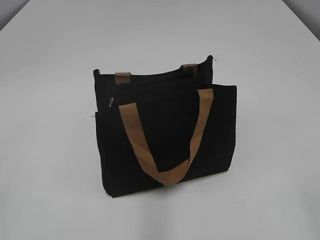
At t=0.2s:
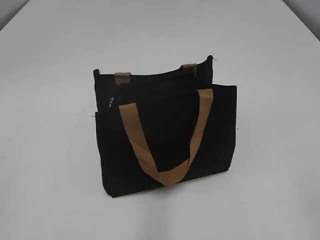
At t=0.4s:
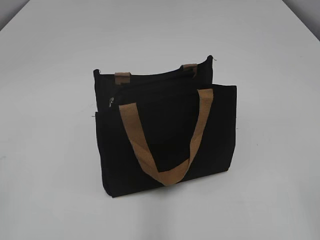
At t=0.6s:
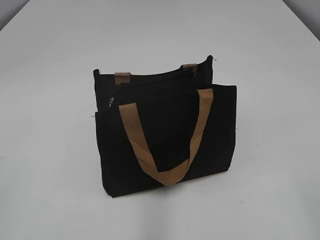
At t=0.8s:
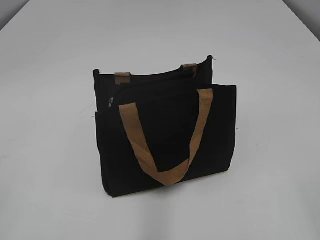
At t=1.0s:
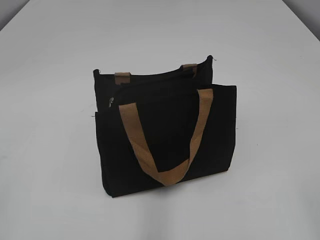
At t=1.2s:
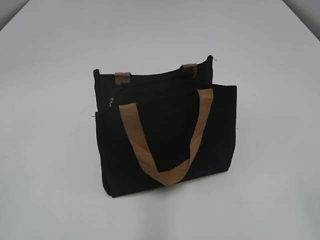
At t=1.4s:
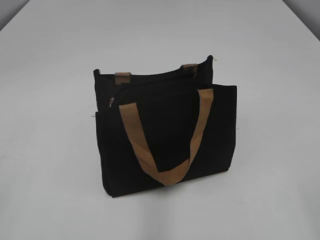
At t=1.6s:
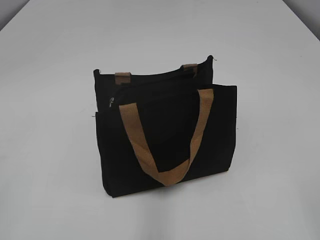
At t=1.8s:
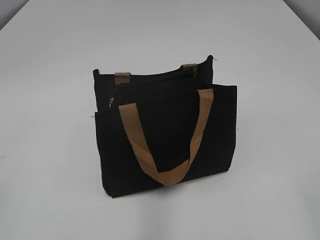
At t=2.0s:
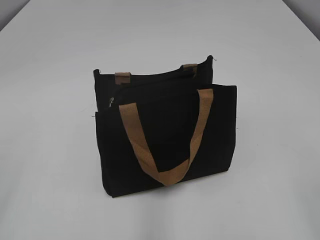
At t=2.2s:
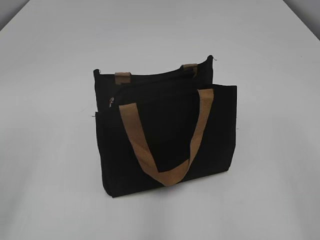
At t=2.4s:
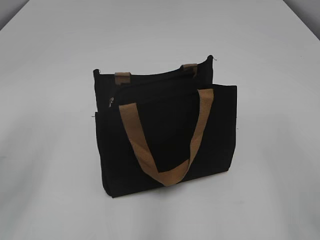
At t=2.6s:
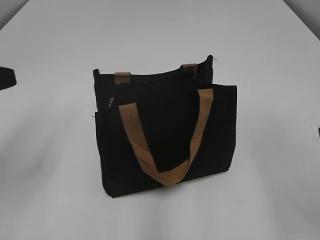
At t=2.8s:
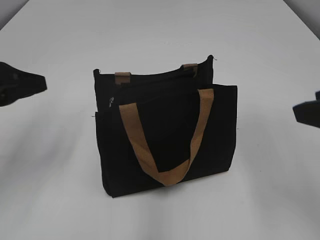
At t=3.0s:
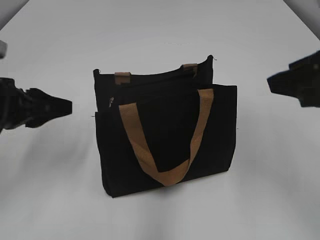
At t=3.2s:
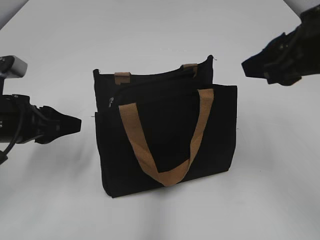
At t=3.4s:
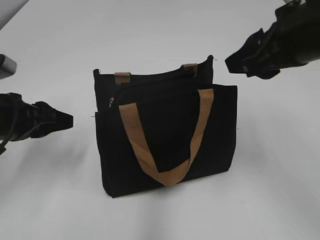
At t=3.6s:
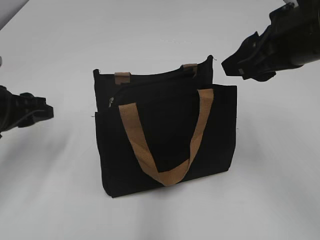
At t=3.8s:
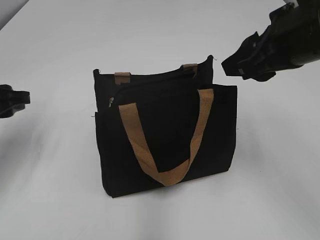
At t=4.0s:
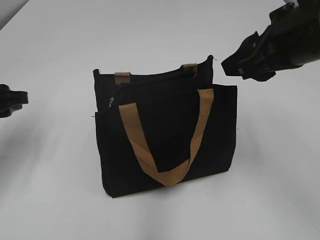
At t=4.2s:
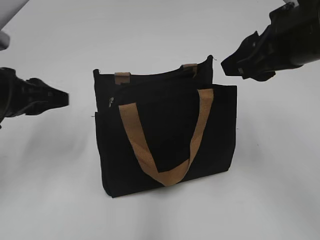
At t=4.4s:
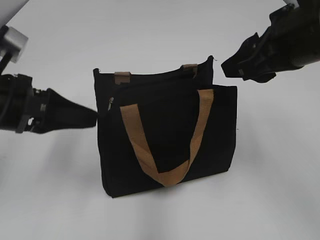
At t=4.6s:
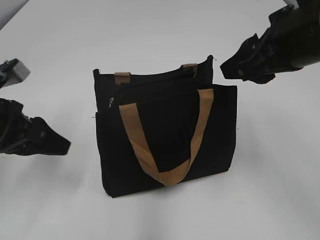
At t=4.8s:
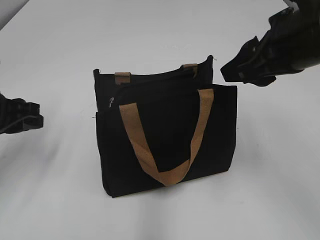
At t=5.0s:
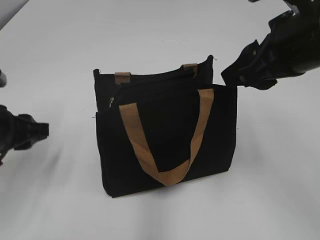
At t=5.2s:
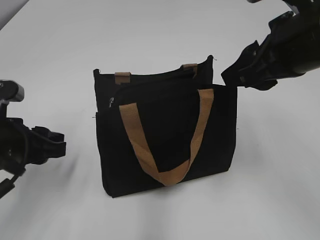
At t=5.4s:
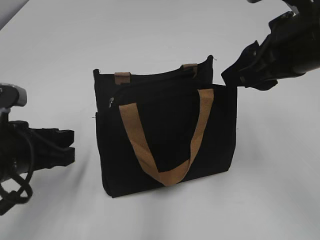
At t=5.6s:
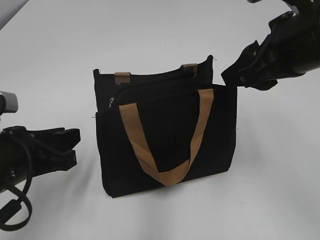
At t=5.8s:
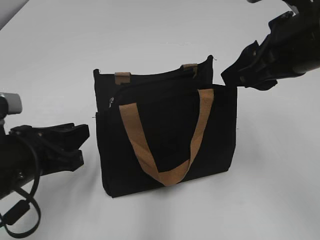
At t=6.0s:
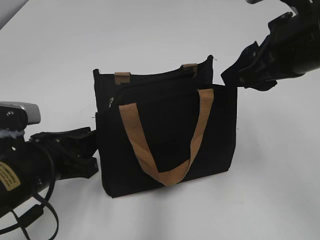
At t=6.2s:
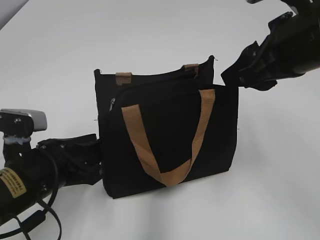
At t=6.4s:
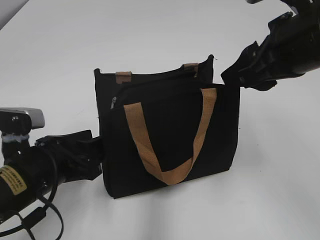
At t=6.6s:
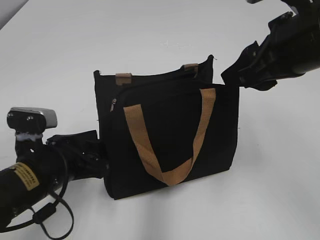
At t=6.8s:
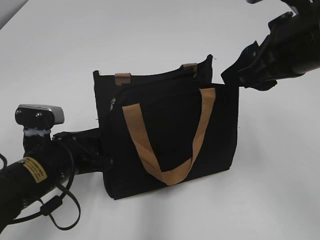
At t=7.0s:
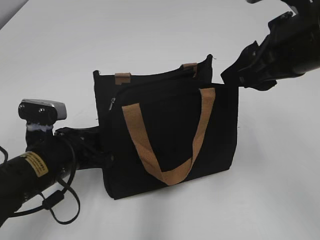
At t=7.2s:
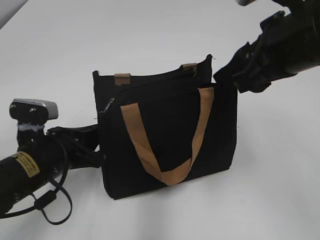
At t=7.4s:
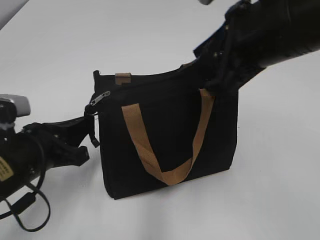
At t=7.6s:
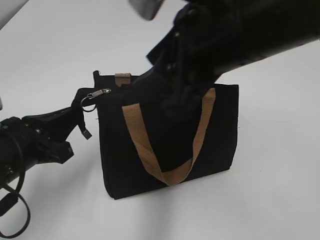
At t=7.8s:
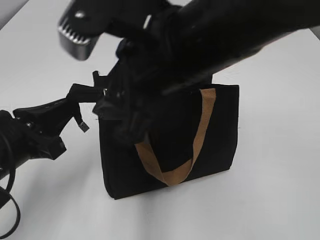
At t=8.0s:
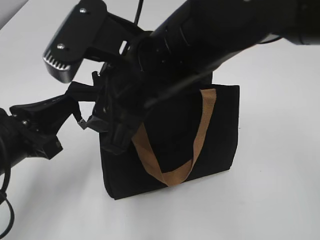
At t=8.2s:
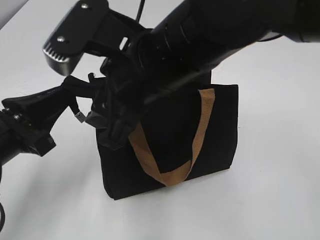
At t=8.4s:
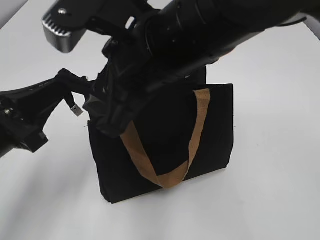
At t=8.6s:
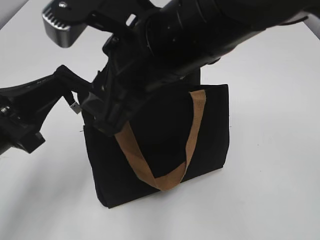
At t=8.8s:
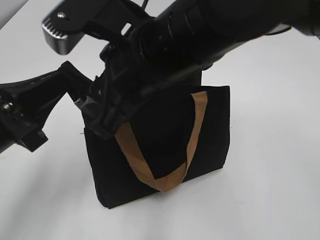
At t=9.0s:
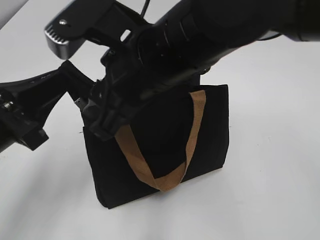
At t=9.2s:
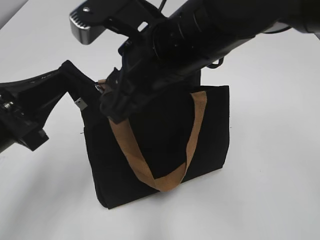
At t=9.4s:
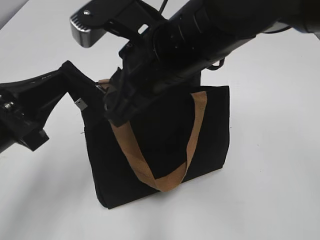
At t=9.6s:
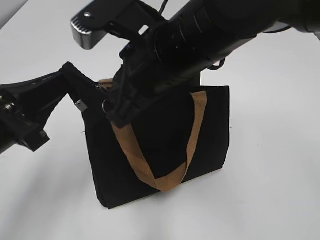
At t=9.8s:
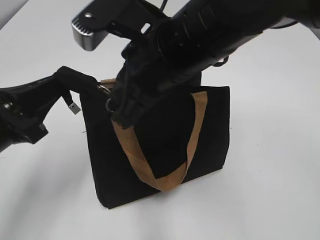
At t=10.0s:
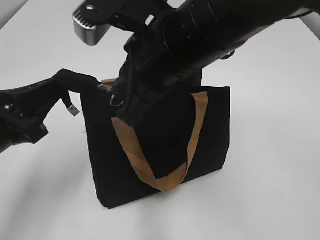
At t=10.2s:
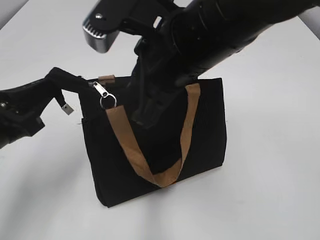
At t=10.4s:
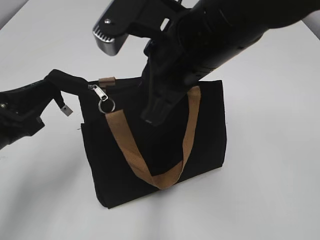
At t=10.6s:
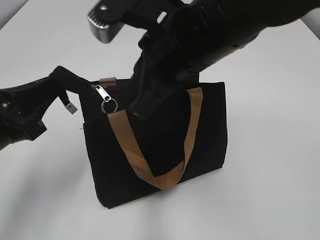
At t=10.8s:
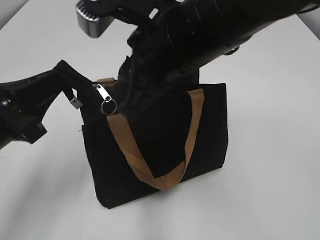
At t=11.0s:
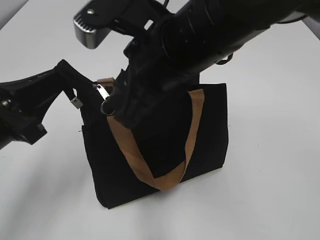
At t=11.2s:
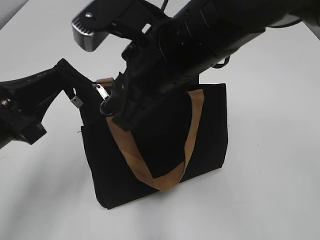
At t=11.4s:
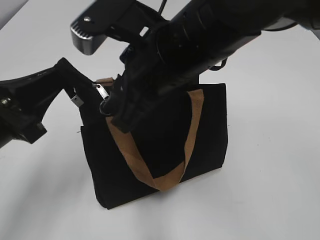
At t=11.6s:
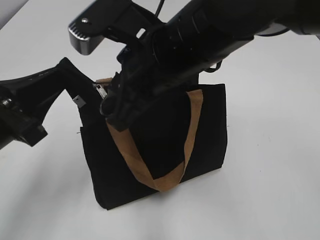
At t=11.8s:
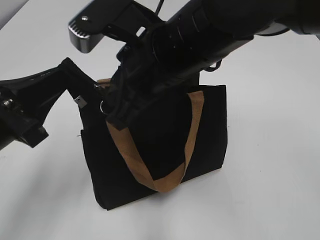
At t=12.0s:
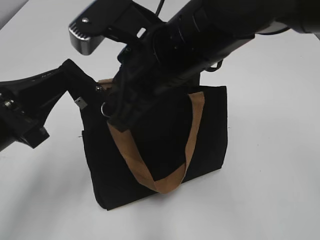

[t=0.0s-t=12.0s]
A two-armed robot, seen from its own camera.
t=1.6s to t=3.0s: The two grippers go approximately 20 cm forward.
t=3.0s to t=4.4s: The right gripper goes approximately 5 cm forward.
t=4.4s to t=6.0s: The left gripper travels downward and backward by about 10 cm.
t=6.0s to t=7.6s: The right gripper is displaced to the left by some 10 cm, while the left gripper closes.
t=7.6s to t=9.0s: The right gripper shifts some 5 cm to the left. The left gripper heads upward, covering roughly 5 cm.
t=9.0s to t=10.4s: The right gripper closes its fingers.
t=10.4s to t=12.0s: The right gripper opens and closes again.

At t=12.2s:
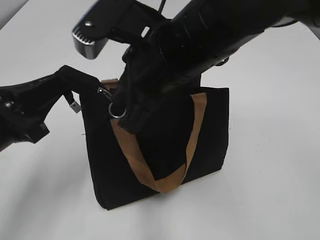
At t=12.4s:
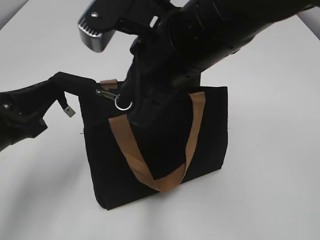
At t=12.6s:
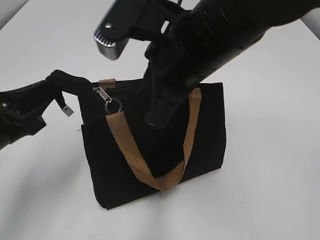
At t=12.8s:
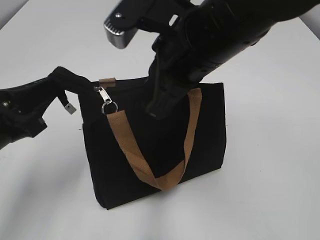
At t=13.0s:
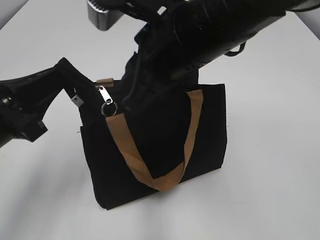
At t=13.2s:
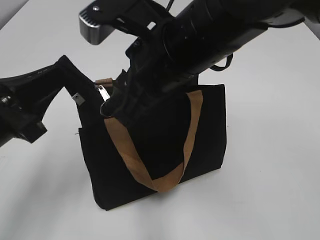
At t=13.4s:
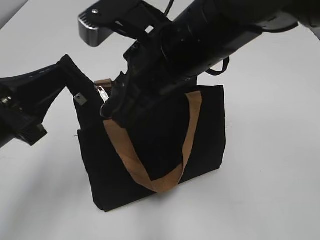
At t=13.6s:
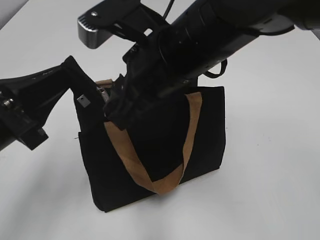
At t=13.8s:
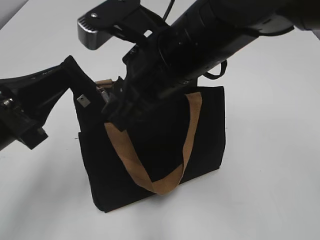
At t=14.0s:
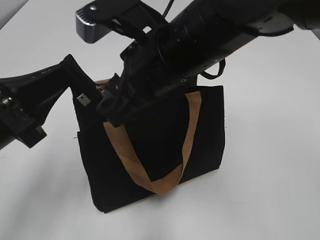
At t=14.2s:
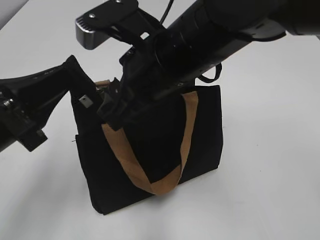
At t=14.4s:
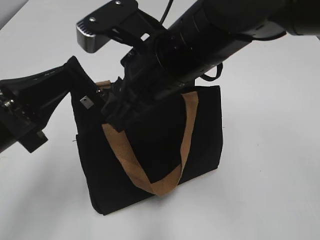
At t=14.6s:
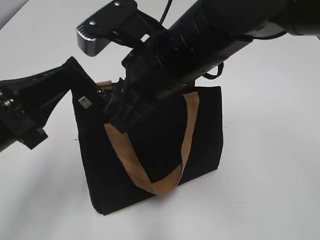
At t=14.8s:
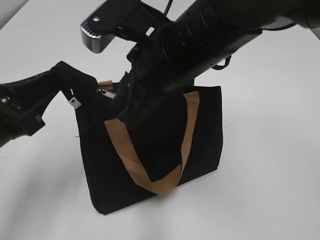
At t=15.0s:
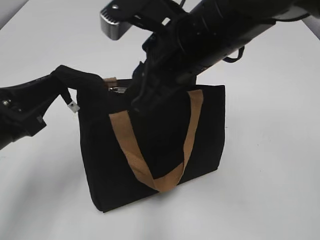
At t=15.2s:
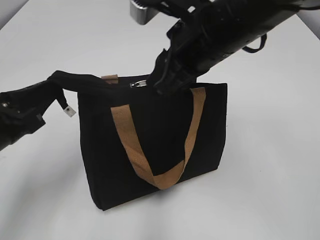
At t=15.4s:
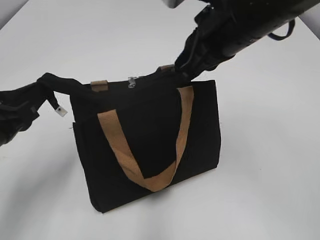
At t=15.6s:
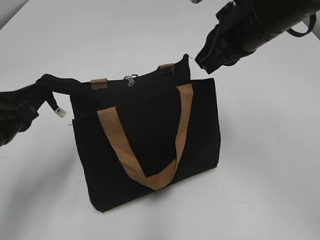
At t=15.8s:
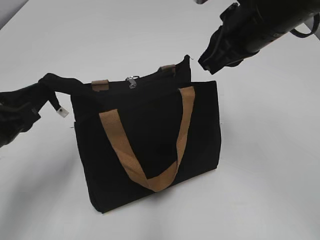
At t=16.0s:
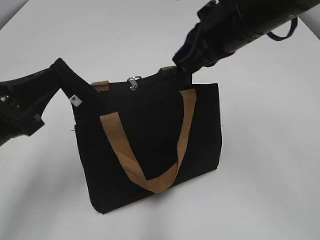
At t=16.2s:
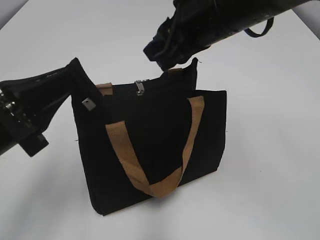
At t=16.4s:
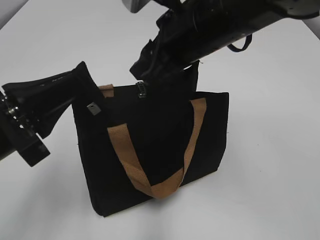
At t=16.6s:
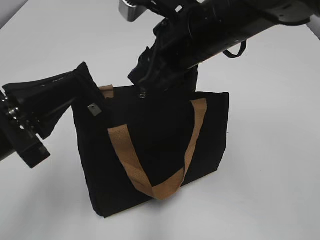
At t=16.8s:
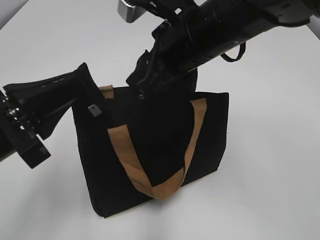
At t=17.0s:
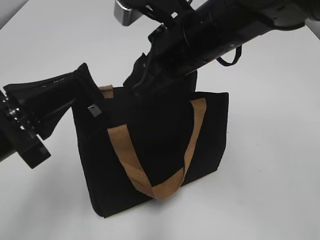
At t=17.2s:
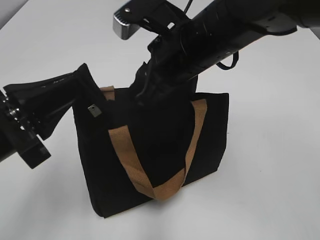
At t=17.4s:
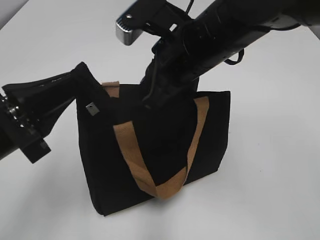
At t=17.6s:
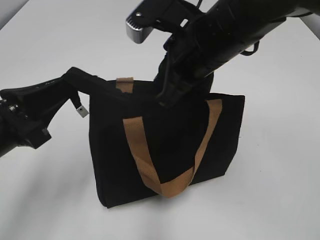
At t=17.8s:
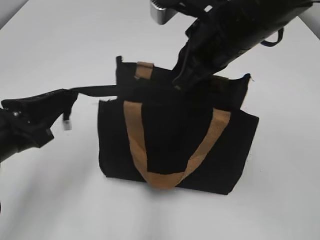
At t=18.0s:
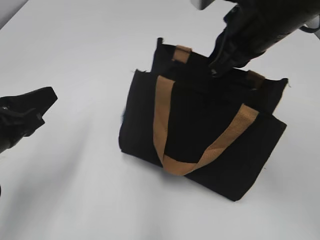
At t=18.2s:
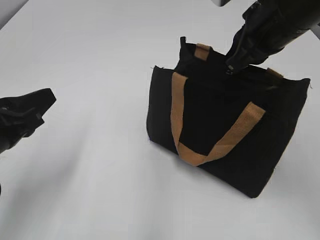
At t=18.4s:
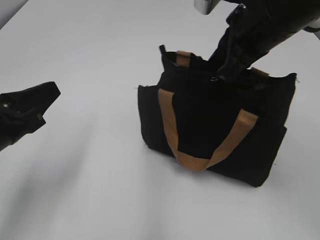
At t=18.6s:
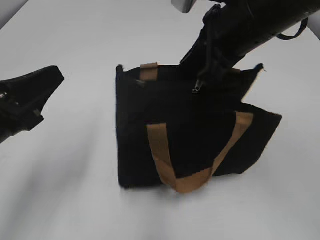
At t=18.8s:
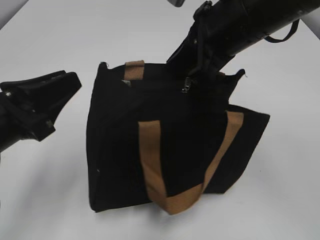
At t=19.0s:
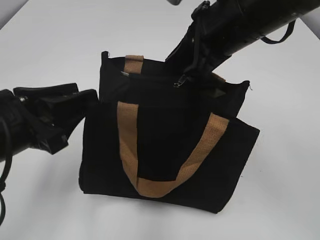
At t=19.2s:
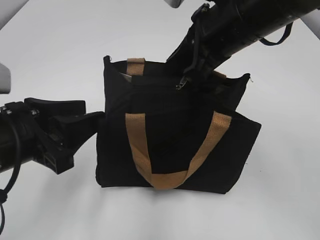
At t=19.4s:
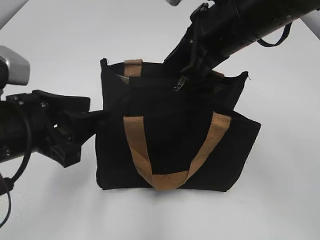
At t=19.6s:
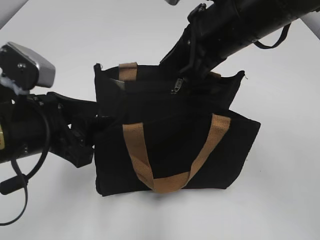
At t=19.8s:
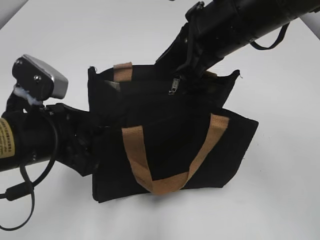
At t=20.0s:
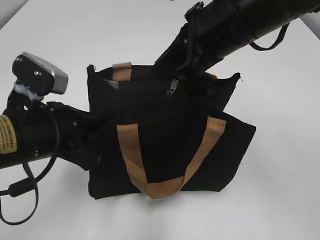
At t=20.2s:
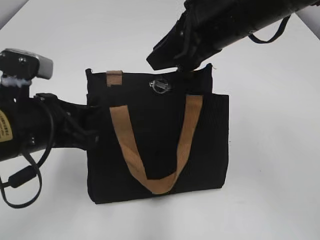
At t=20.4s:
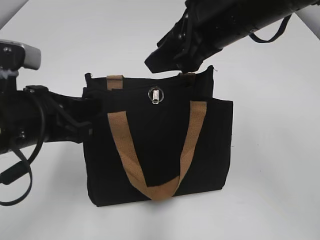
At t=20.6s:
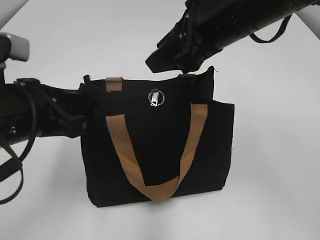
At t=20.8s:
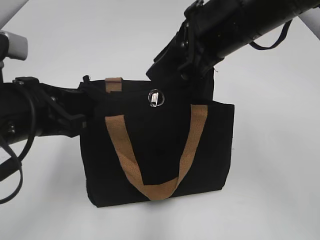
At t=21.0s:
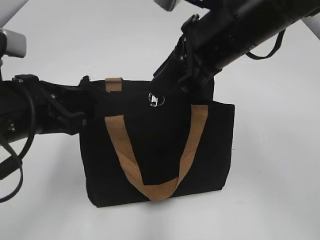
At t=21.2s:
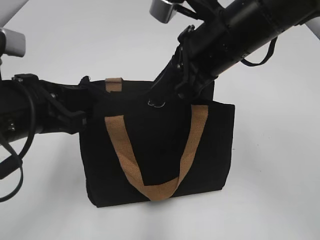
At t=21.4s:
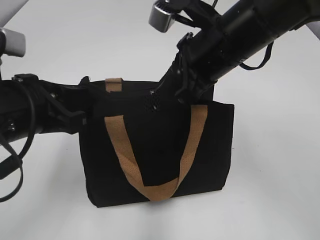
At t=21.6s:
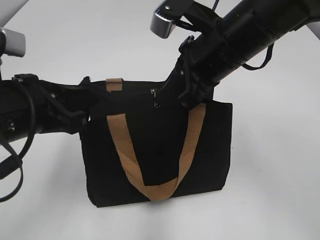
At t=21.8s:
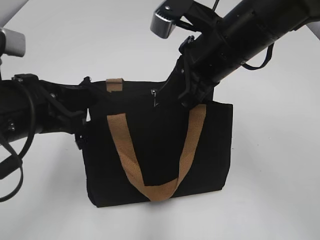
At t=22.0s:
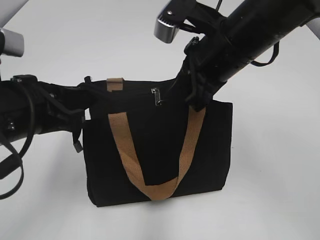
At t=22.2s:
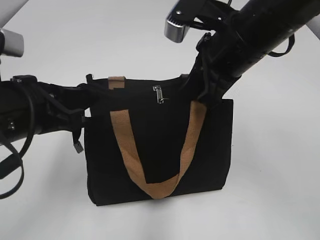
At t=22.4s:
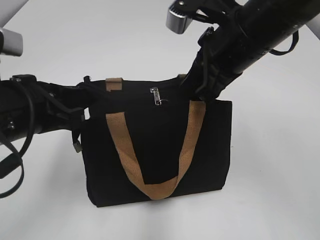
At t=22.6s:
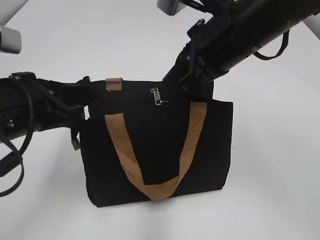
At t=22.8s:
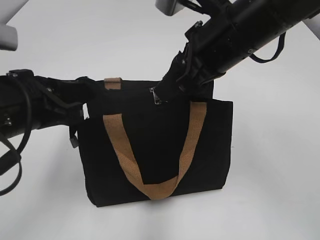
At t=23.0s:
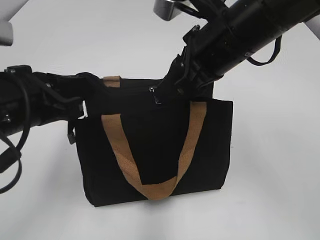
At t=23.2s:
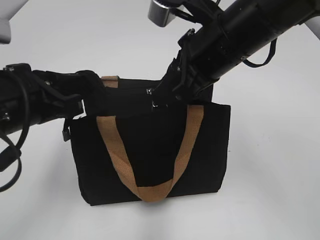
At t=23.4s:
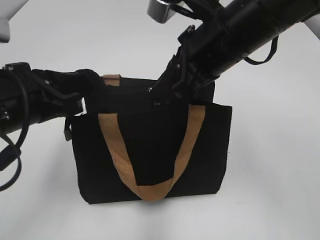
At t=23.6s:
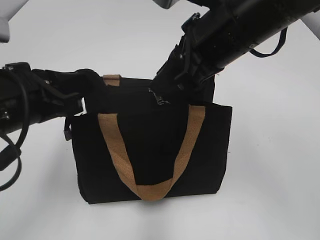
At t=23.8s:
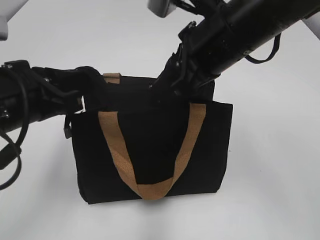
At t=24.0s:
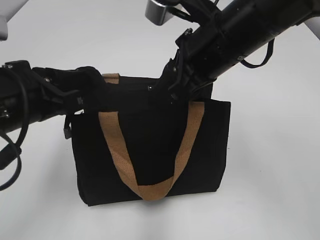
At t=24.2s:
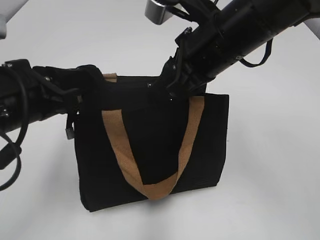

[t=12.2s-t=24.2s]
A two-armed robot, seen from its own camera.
t=12.2s to t=13.8s: The right gripper opens.
t=13.8s to t=15.2s: The right gripper goes about 5 cm to the right.
t=15.2s to t=16.6s: The right gripper moves approximately 5 cm to the right and comes back, and closes, then reopens.
t=16.6s to t=18.2s: The right gripper is displaced to the right by approximately 10 cm, and closes up.
t=18.2s to t=19.8s: The left gripper moves to the right, about 5 cm, and opens up. Meanwhile the right gripper goes approximately 5 cm to the left.
t=19.8s to t=21.2s: The right gripper opens its fingers; the left gripper closes.
t=21.2s to t=22.6s: The grippers make only small movements.
t=22.6s to t=24.2s: The right gripper opens its fingers.
